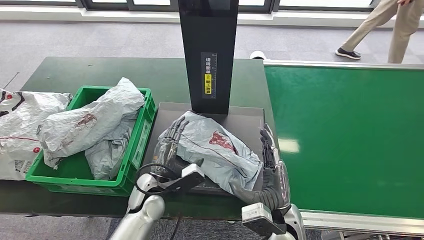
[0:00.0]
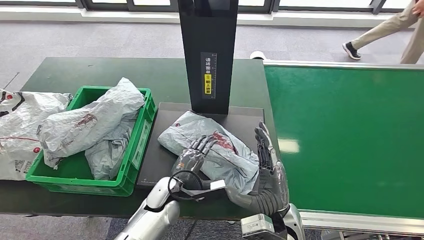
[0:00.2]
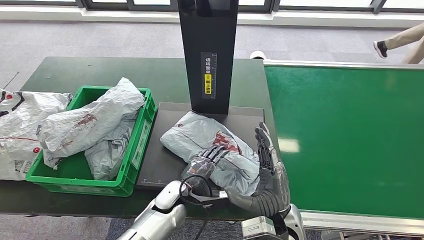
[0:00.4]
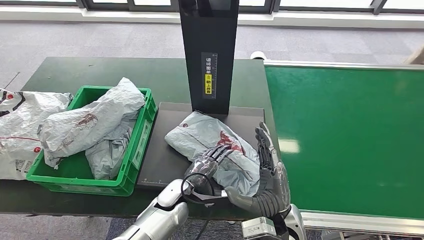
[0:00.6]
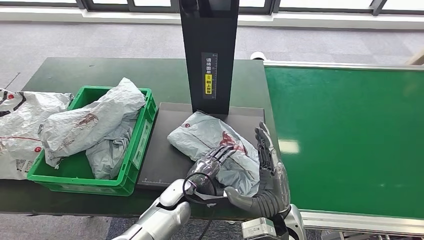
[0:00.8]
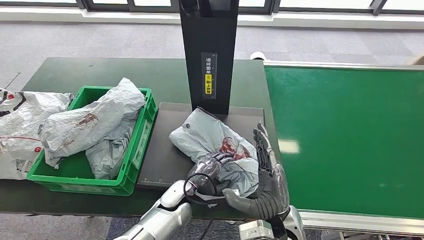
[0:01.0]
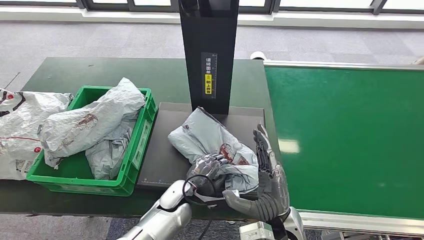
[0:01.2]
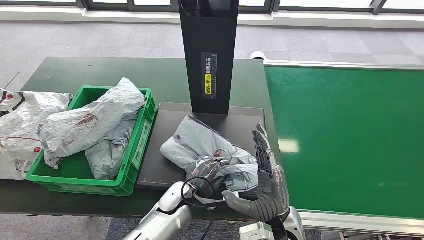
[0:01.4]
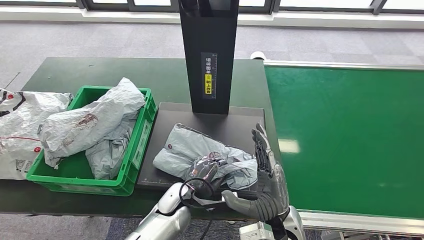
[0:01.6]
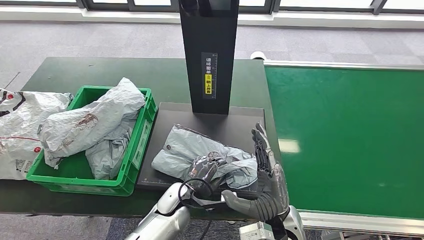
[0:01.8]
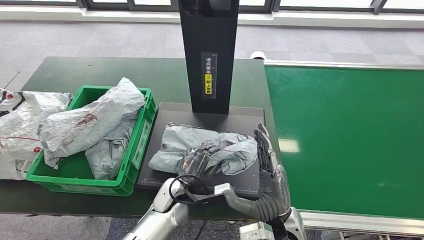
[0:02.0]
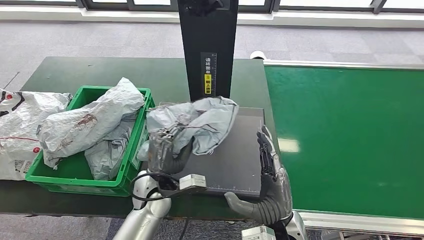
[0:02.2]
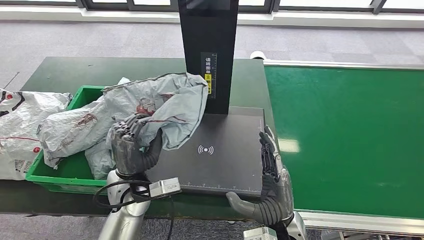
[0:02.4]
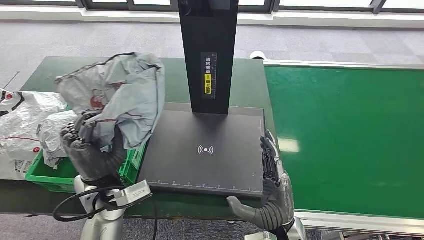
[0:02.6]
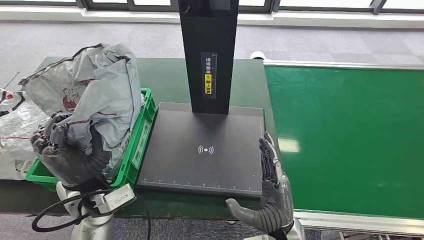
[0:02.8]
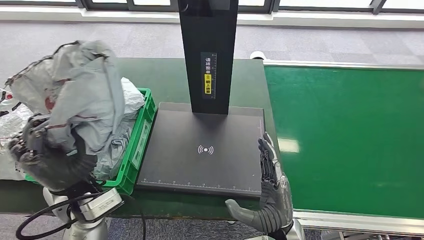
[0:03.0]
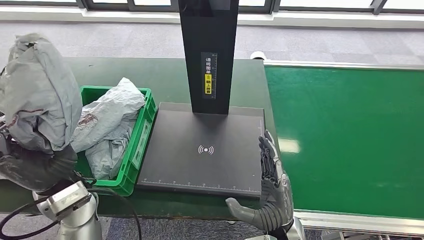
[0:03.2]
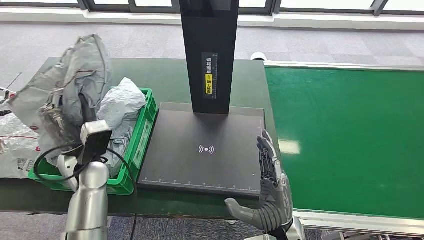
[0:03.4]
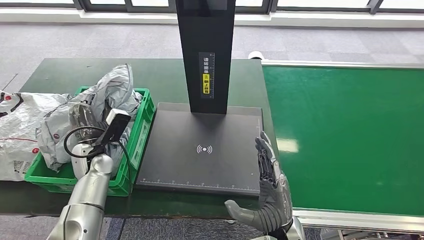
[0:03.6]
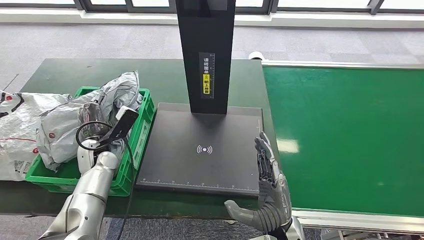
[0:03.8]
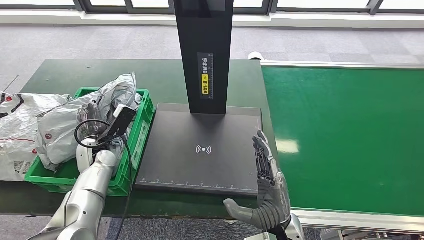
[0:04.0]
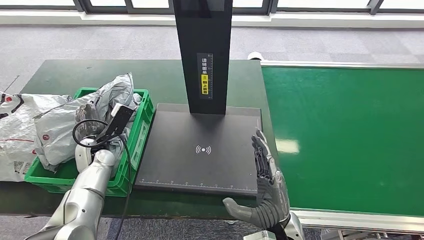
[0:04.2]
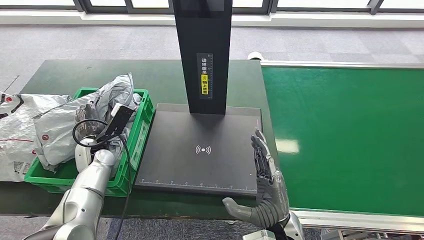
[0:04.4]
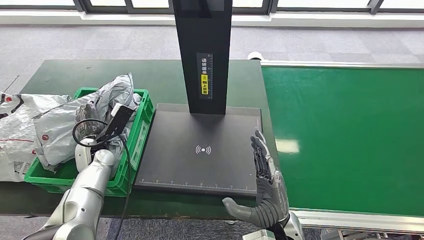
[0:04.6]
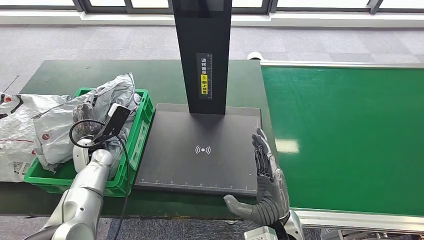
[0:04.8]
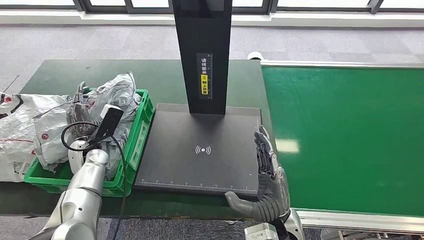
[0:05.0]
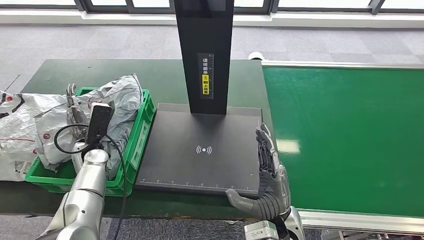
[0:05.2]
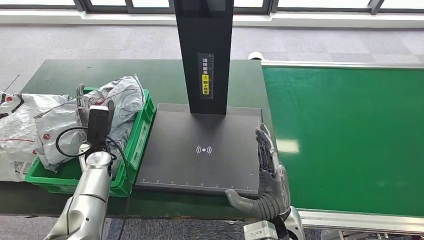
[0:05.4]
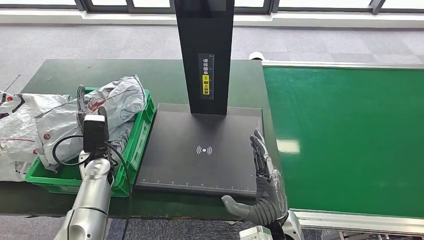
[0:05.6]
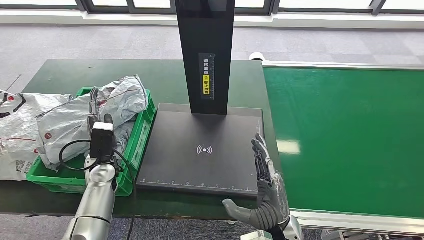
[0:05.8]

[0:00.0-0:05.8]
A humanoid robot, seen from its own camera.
Step, 0:00.0 to 0:02.6: Pick up the parcel from the inbound machine.
Step, 0:02.8 to 0:05.8: Place the parcel into the delivery box.
0:00.0 to 0:01.4: The left hand is displaced to the right by about 5 cm.
0:04.4 to 0:05.8: The left hand travels to the right by approximately 5 cm.
